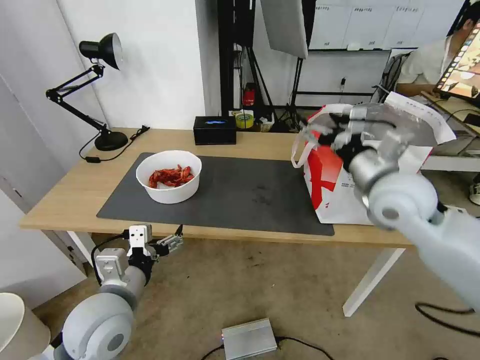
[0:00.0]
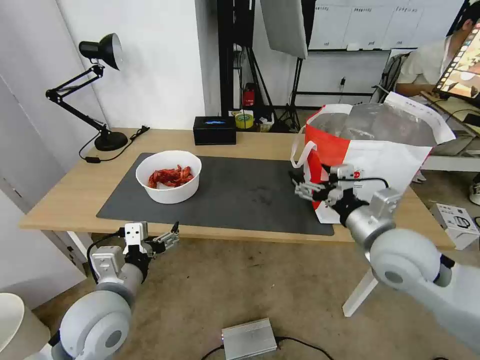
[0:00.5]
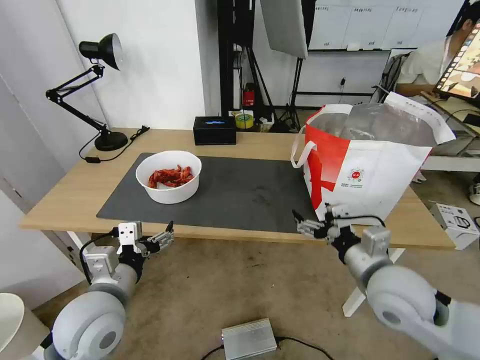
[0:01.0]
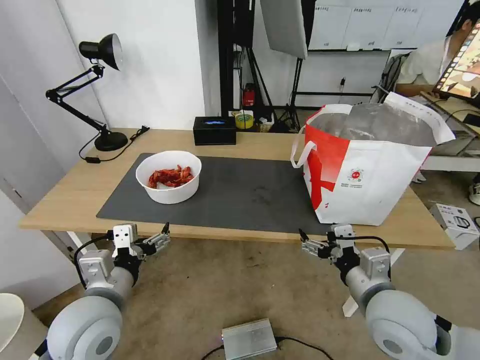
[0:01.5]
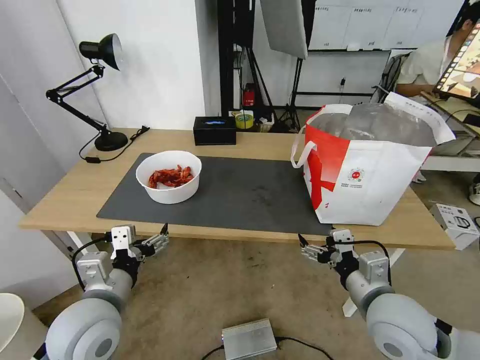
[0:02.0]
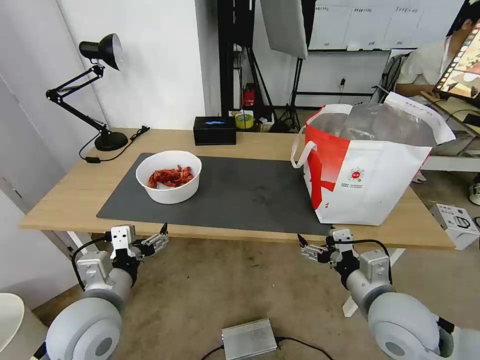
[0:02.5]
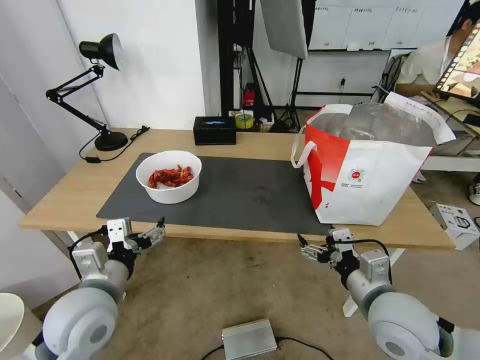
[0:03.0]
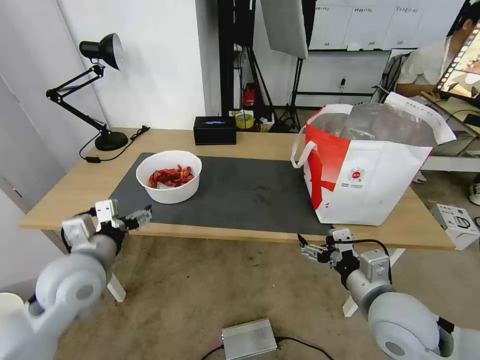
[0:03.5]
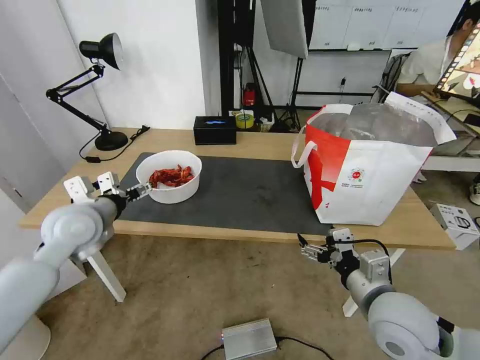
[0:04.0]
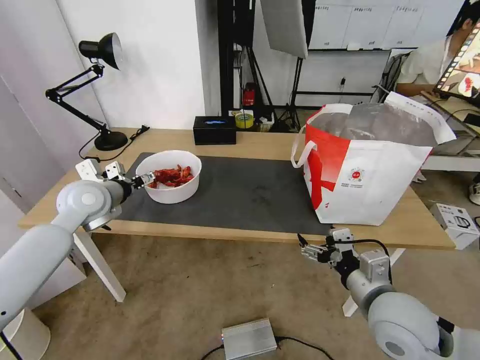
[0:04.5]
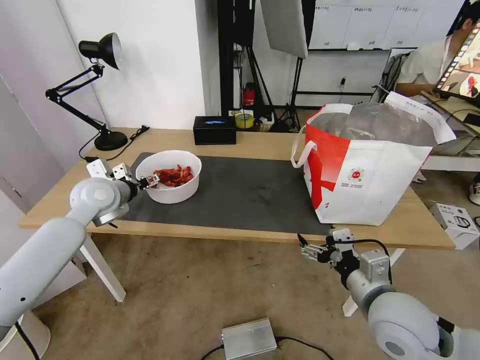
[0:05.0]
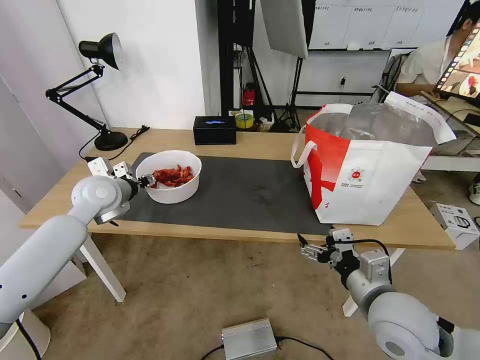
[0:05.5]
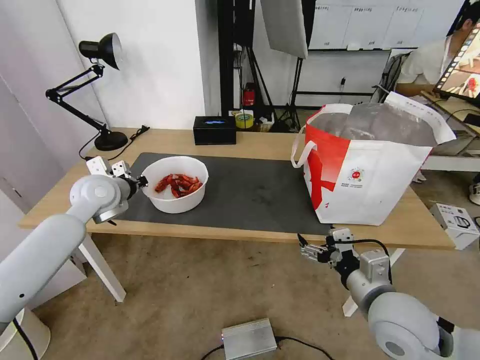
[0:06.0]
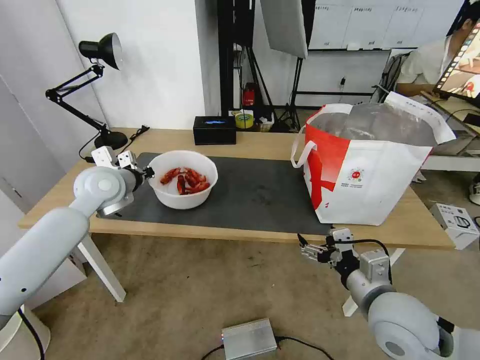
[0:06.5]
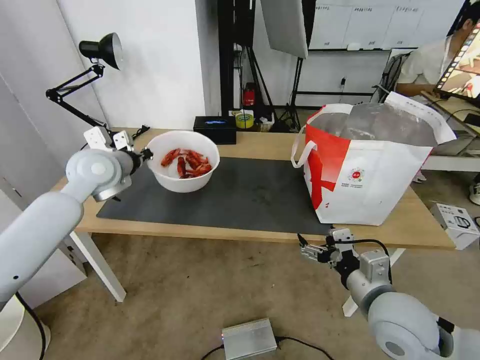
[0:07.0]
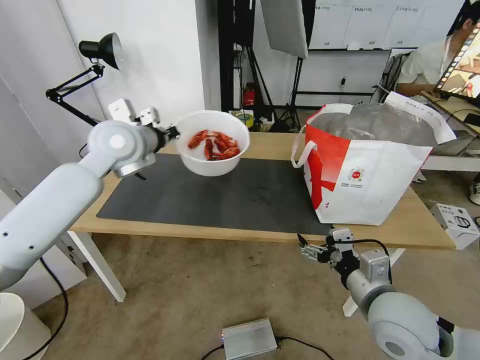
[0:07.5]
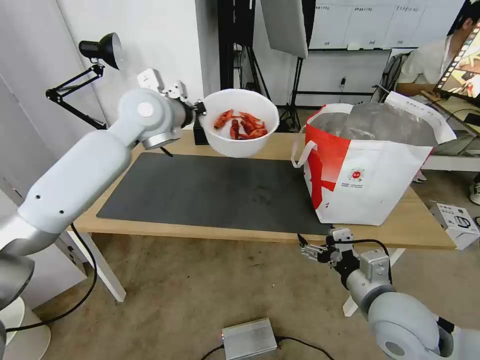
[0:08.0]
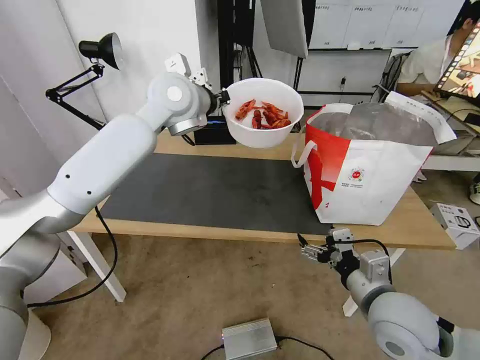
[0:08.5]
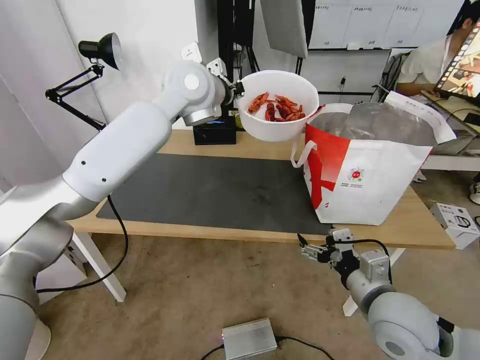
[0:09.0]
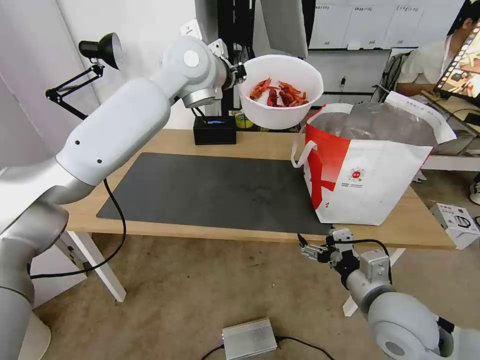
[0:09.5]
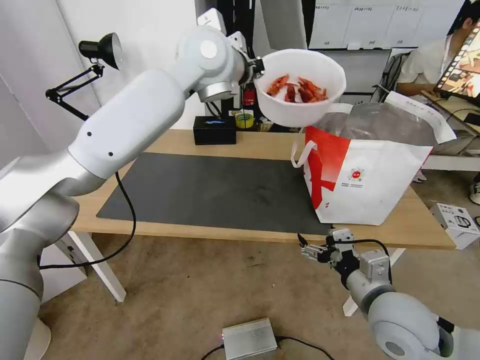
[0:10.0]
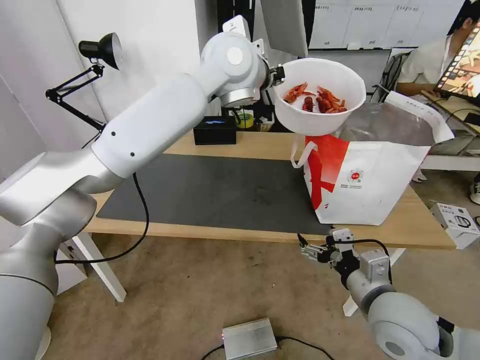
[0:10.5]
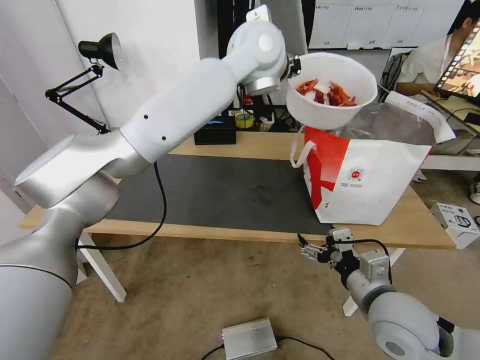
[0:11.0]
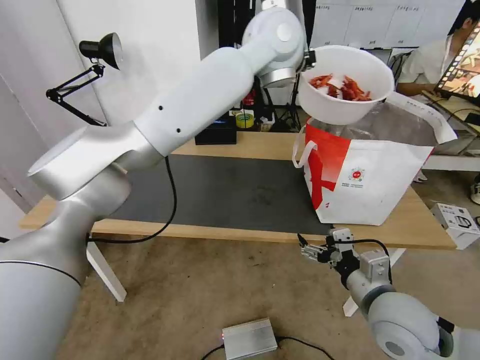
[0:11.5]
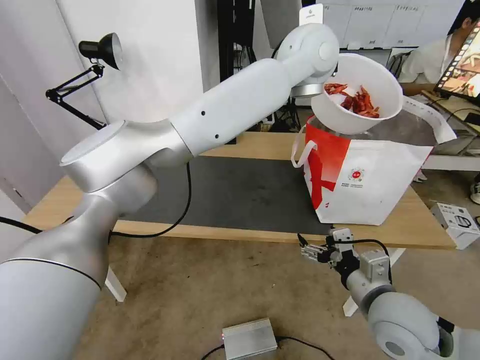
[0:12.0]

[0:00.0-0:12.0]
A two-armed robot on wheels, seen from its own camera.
Task of the whole recording: Pick up the trash from the table and place it into the takeout bag.
0:00.0 to 0:02.0: The right gripper moves backward and downward, roughly 20 cm.
0:02.0 to 0:04.0: The left gripper heads forward and to the left, covering approximately 20 cm.
0:04.0 to 0:06.0: The left gripper shifts roughly 10 cm forward, and closes.
0:06.0 to 0:08.0: The left gripper shifts about 20 cm upward and to the right.
0:08.0 to 0:10.0: The left gripper shifts roughly 15 cm to the right and upward.
0:10.0 to 0:12.0: The left gripper goes about 15 cm to the right.

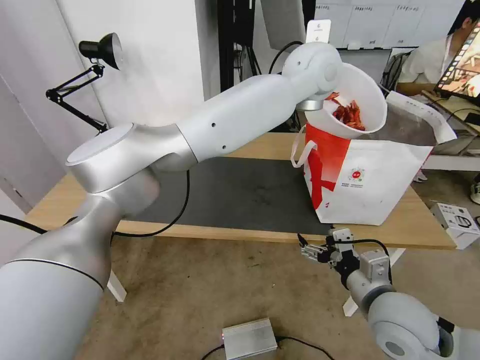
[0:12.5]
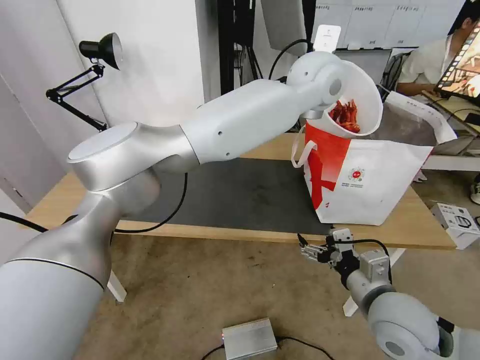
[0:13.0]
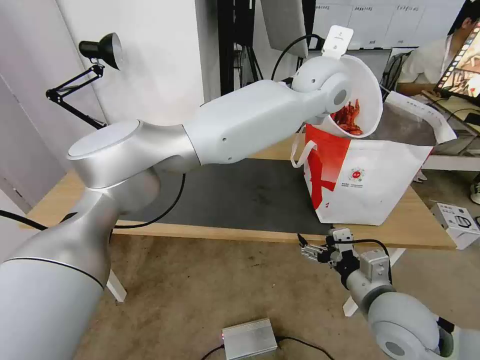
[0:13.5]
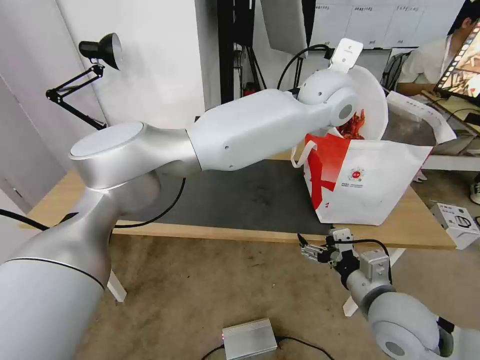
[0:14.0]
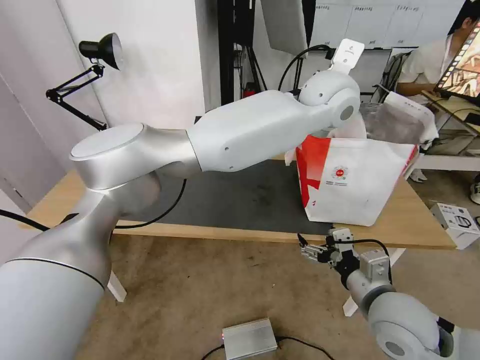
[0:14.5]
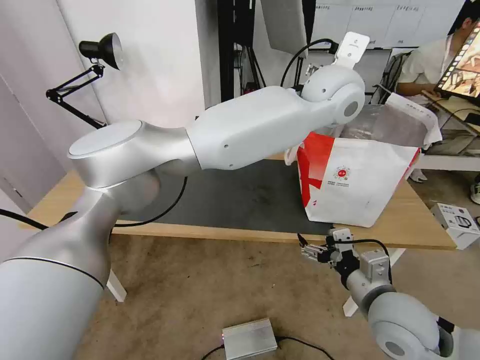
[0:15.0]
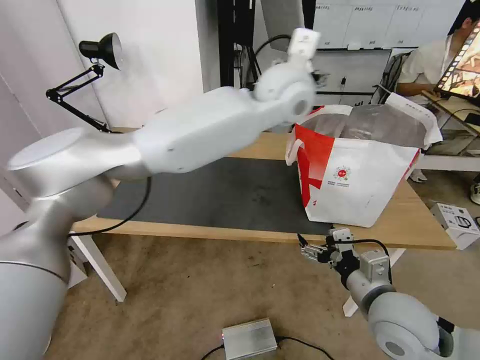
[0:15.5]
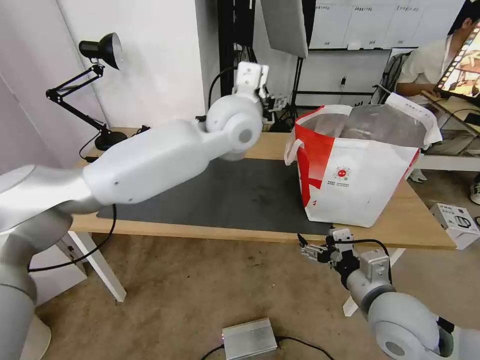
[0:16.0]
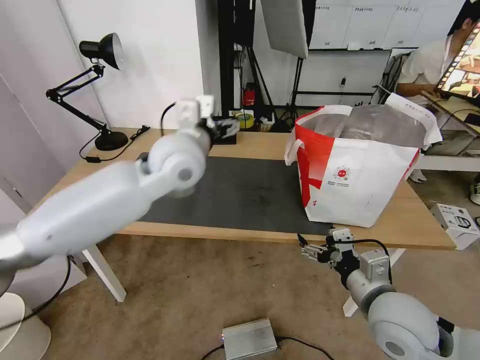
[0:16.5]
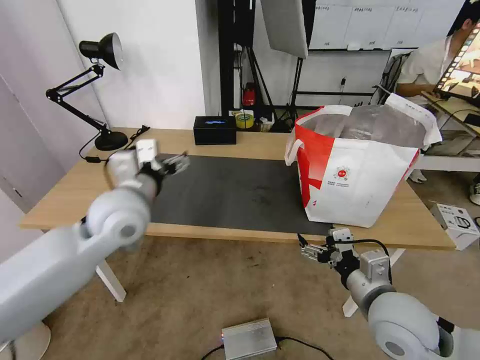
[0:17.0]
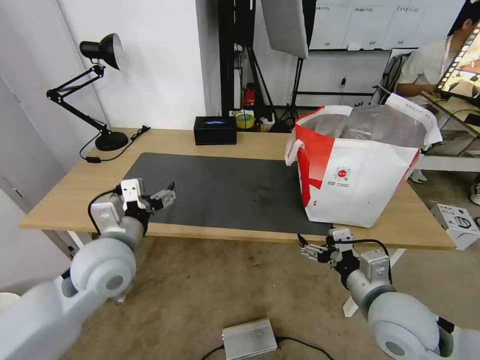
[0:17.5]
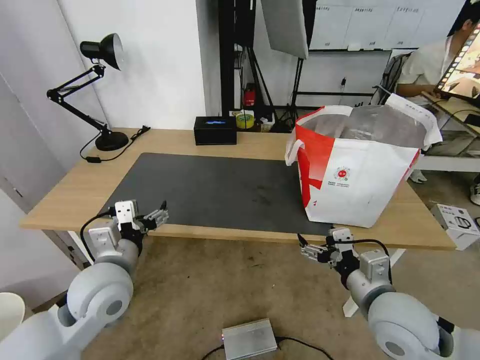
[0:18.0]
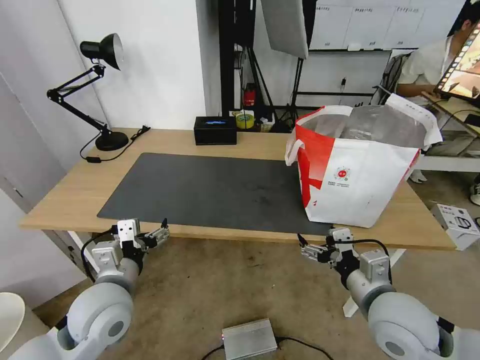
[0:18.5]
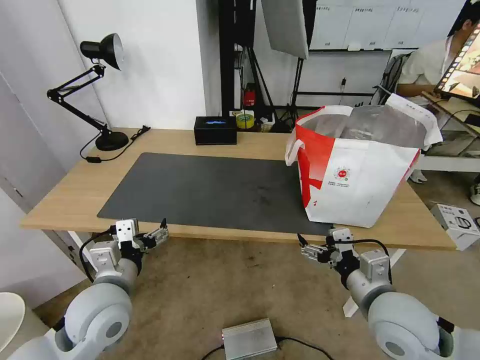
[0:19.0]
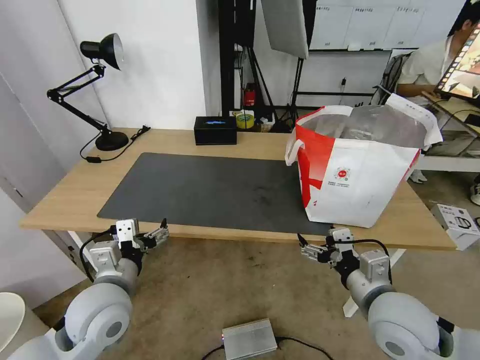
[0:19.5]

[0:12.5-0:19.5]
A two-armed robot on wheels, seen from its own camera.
Task of the whole recording: Pick up the trash from the table and place it into the takeout bag.
0:12.5 to 0:14.5: The left gripper shifts by some 5 cm, and opens its fingers.
0:14.5 to 0:16.0: The left gripper heads to the left, covering roughly 15 cm, and opens its fingers.
0:16.0 to 0:17.5: The left gripper is displaced to the left, backward and downward by roughly 30 cm.
0:17.5 to 0:19.5: The left gripper moves downward and backward, some 10 cm.

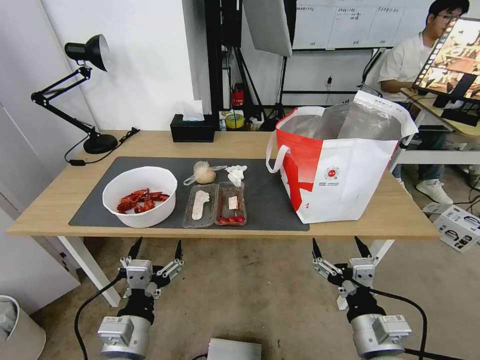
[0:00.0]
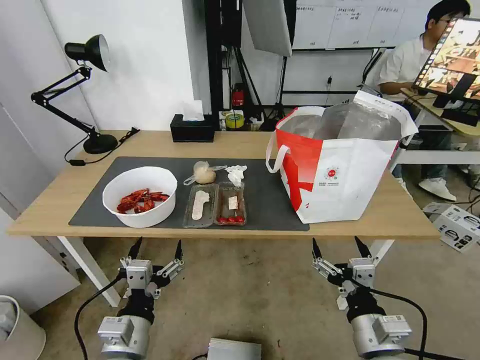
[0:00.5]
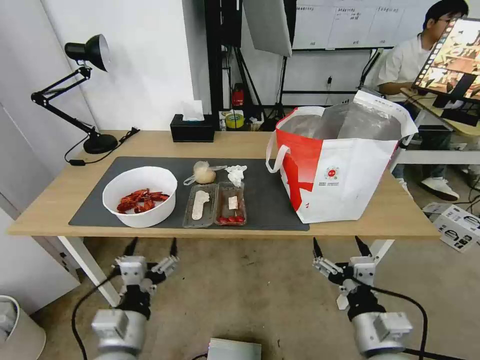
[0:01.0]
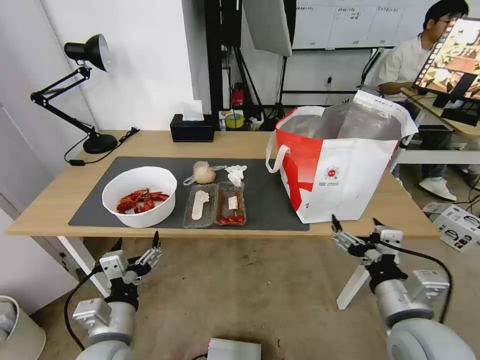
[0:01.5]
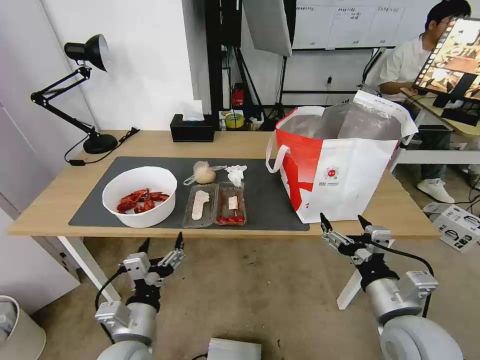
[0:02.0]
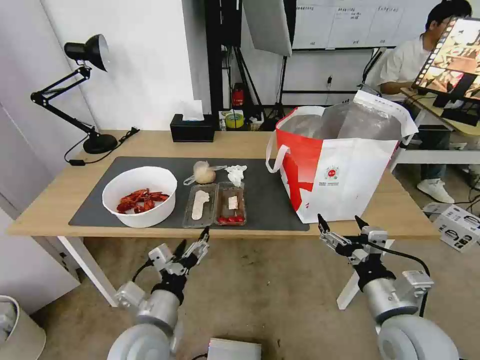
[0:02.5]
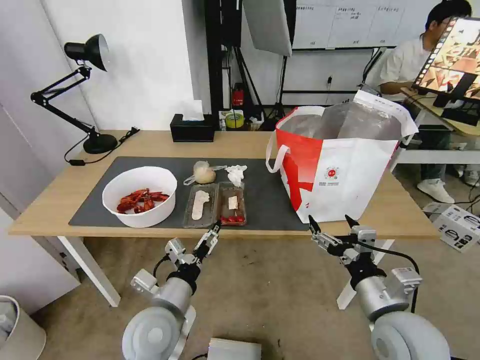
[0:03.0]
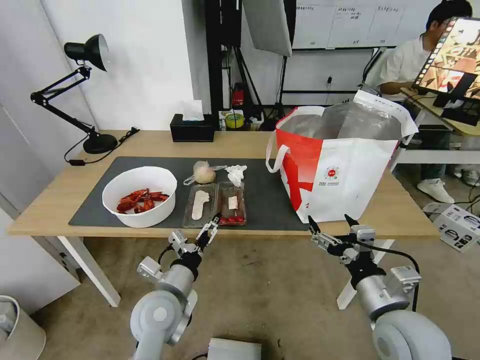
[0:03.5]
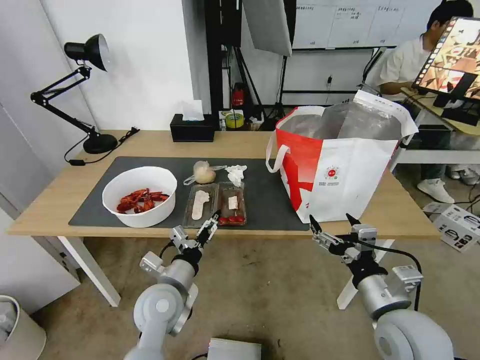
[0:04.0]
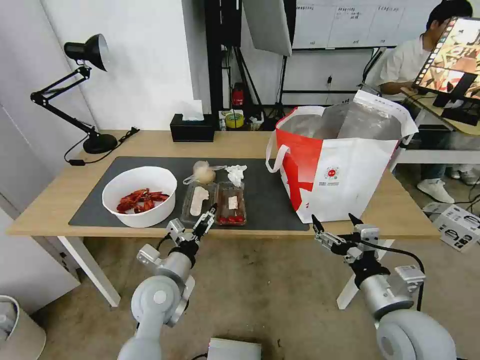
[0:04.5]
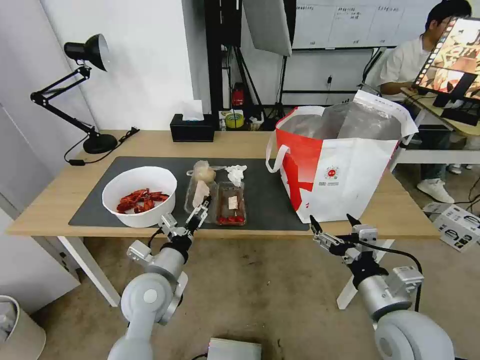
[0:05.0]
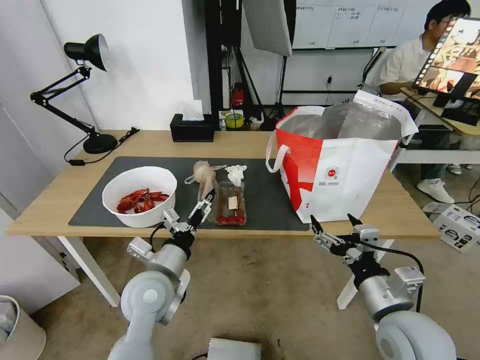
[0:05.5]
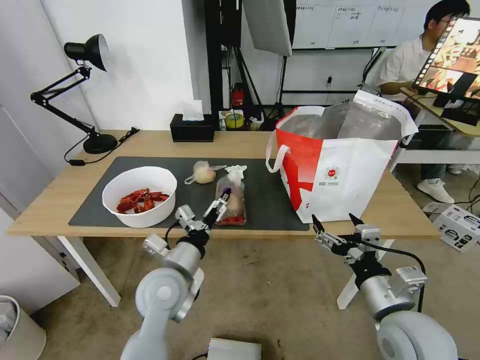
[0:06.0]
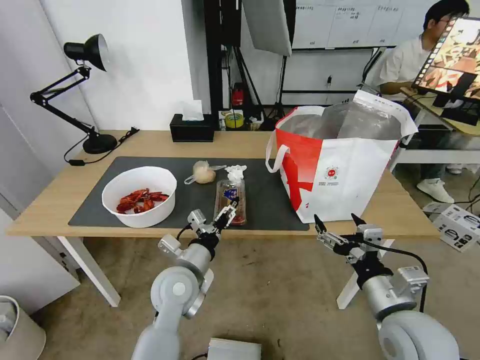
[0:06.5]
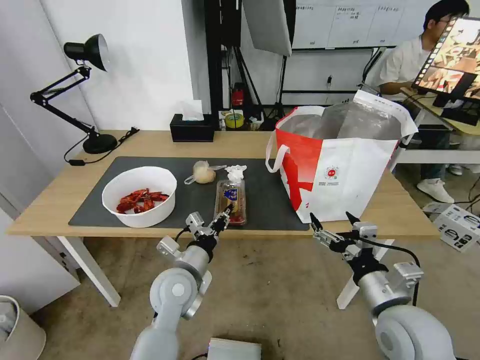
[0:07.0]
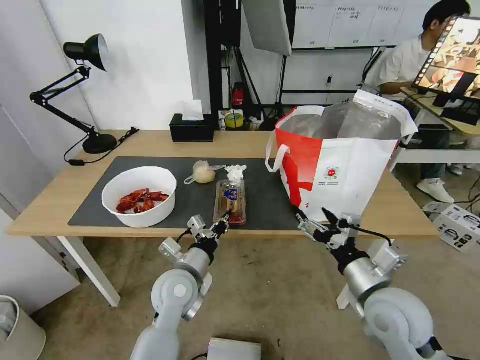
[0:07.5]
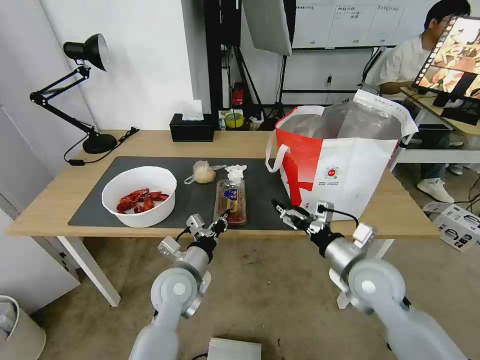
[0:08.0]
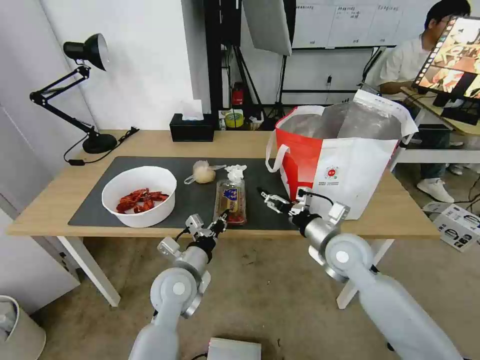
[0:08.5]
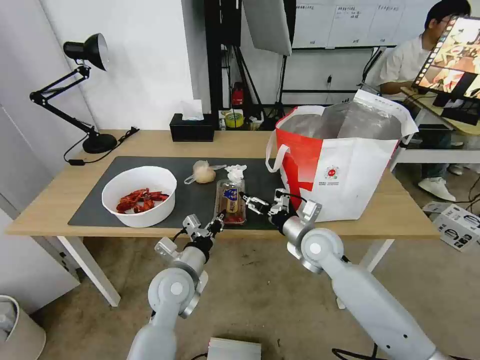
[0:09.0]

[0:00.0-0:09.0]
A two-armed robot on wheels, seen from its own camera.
Task of the whole recording: Pick up the trash from the table and place it into the takeout bag.
0:02.0 to 0:04.5: The left gripper goes roughly 10 cm forward.
0:04.5 to 0:07.0: The left gripper closes up.
0:07.0 to 0:09.0: The right gripper heads forward and to the left, covering roughly 20 cm.
